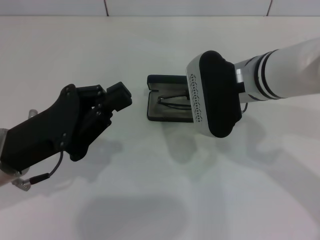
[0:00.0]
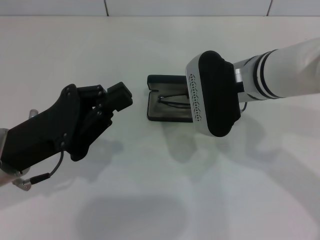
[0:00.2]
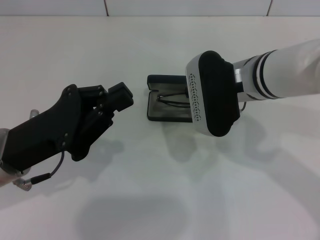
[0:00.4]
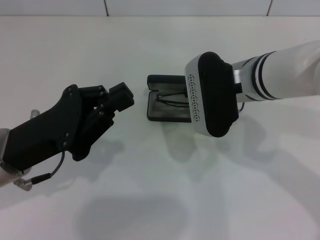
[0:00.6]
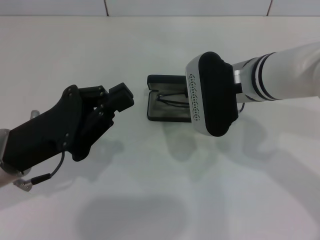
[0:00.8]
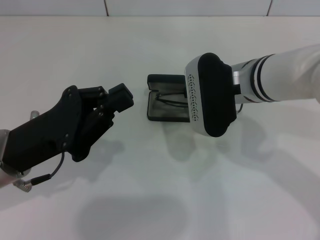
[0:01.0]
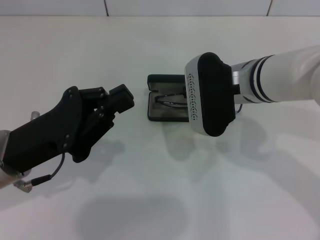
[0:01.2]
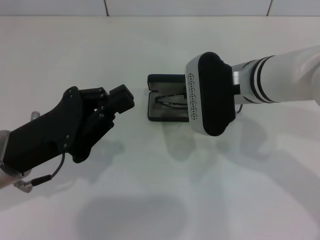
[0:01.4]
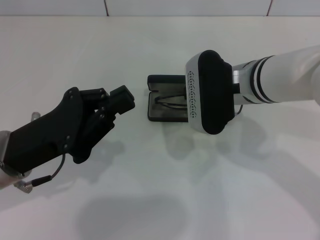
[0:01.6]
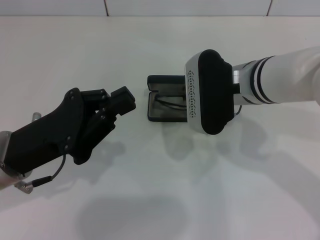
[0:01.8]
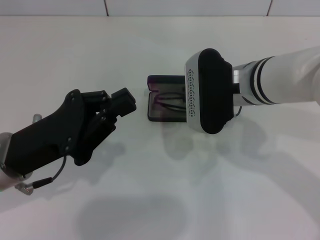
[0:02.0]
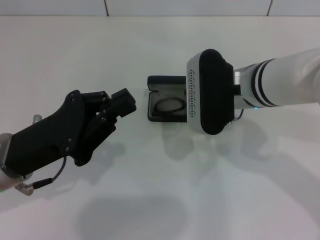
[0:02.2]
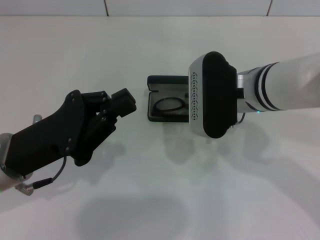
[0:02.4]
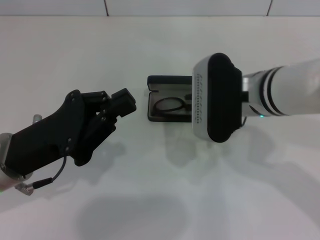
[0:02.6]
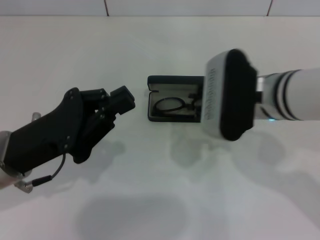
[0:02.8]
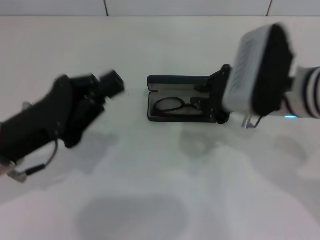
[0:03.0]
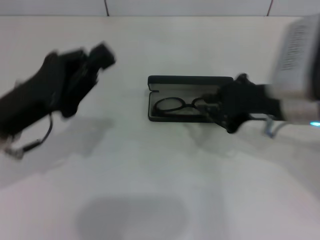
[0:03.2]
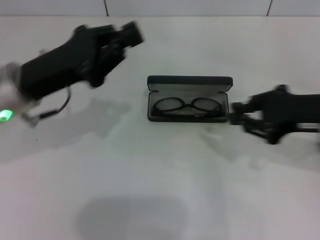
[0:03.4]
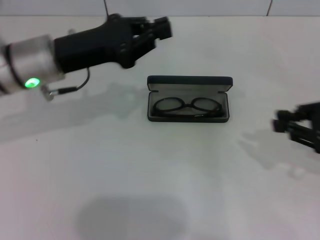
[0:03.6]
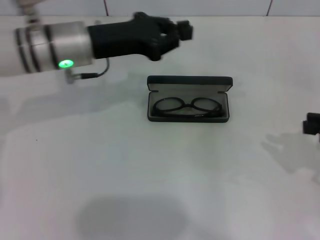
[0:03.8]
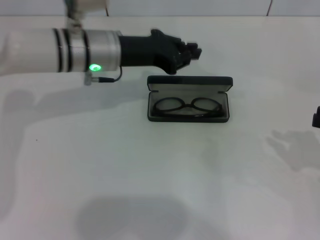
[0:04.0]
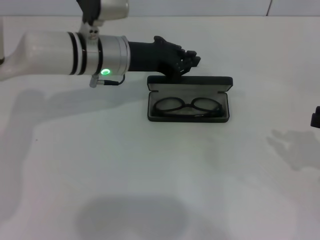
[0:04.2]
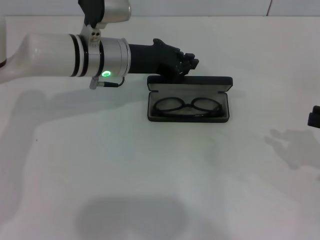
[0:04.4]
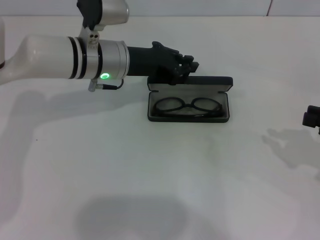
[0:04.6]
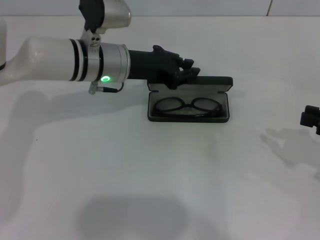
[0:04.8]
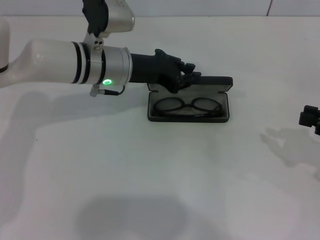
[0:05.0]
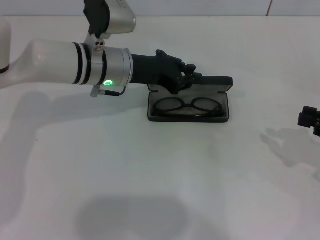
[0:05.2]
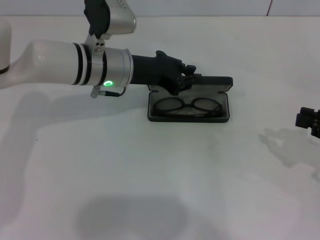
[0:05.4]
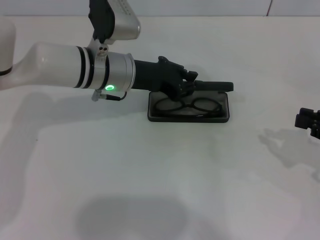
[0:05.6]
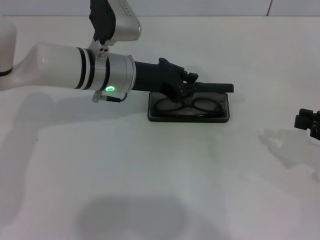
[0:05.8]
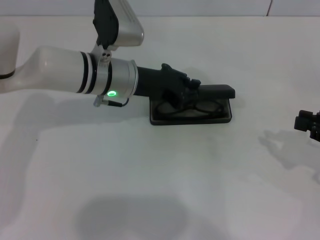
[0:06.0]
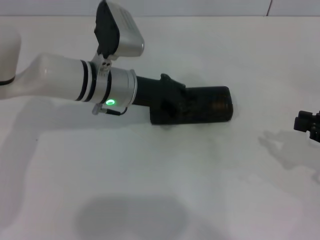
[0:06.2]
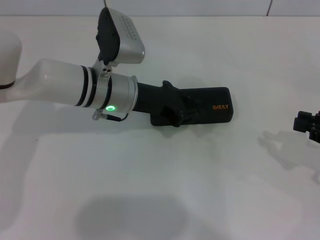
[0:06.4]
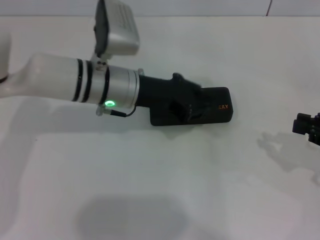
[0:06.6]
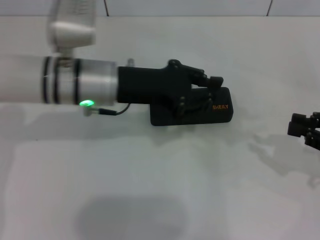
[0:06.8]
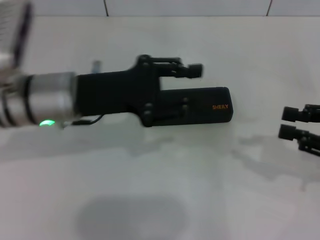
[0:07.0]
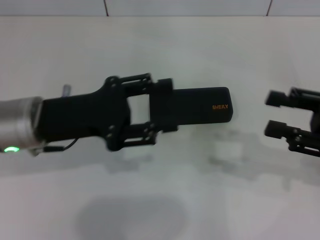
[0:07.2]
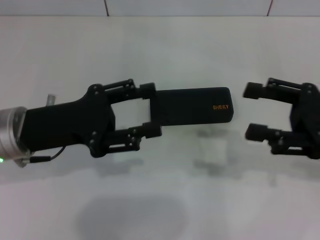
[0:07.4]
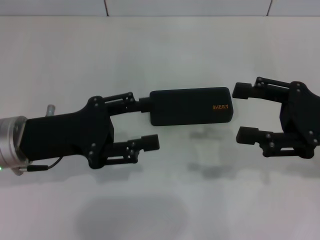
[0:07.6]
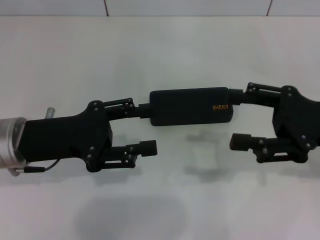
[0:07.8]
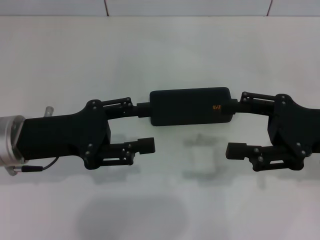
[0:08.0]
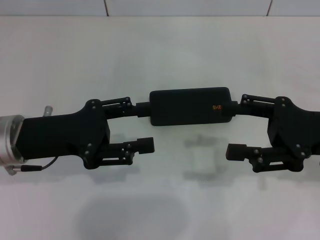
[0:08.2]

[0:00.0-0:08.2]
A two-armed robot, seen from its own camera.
Step, 0:00.0 to 0:02.2: Put the glasses into the case with your right hand.
Step, 0:02.4 to 0:06.2: Close the glasses case with your left hand.
0:00.0 to 0:01.6: The grippers stay close to where they were, moving slightly.
0:01.6 to 0:03.2: The right gripper is displaced to the right by approximately 10 cm.
0:03.2 to 0:05.0: The left gripper shifts roughly 20 cm forward and to the right; the right gripper goes about 20 cm to the right.
0:05.0 to 0:06.6: The grippers stay close to where they were, moving slightly.
0:06.6 to 0:08.2: The right gripper heads to the left, covering about 10 cm, and opens up, while the left gripper shifts approximately 15 cm to the left and backward, and opens its fingers.

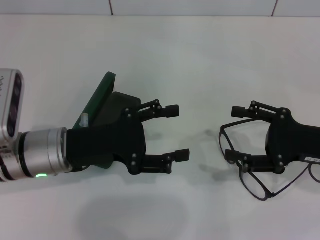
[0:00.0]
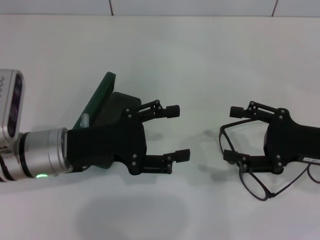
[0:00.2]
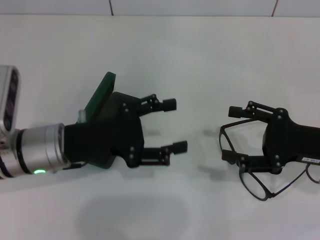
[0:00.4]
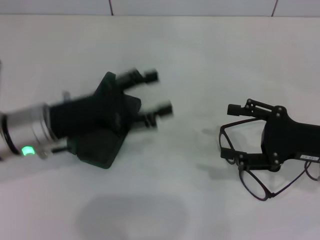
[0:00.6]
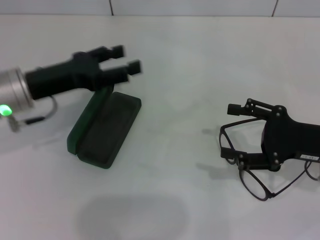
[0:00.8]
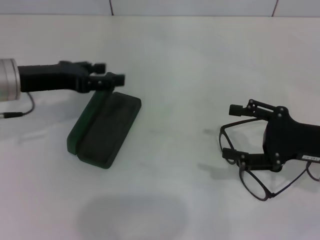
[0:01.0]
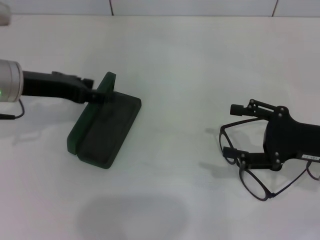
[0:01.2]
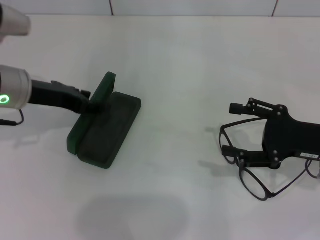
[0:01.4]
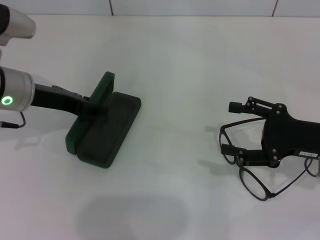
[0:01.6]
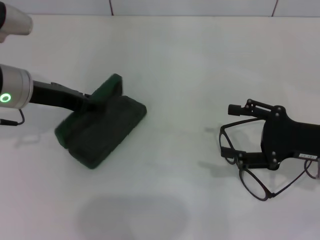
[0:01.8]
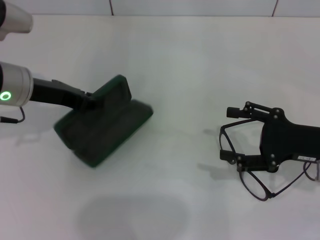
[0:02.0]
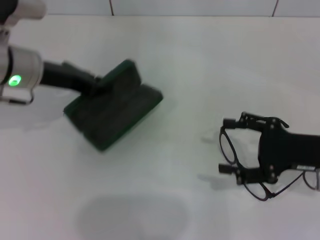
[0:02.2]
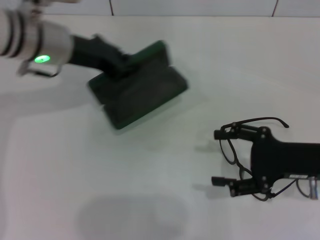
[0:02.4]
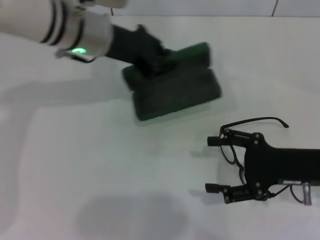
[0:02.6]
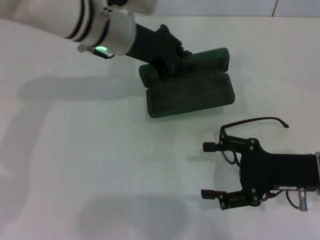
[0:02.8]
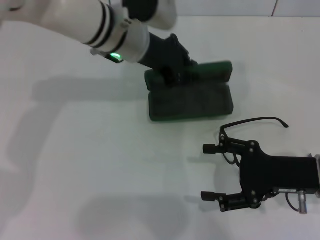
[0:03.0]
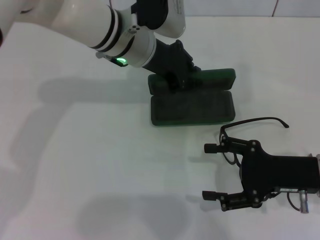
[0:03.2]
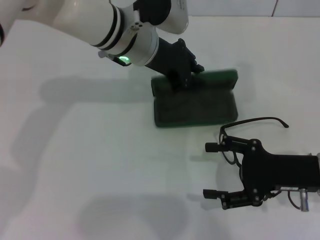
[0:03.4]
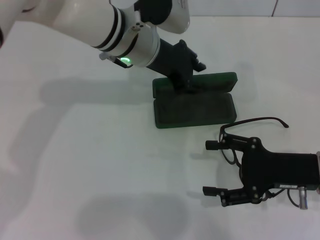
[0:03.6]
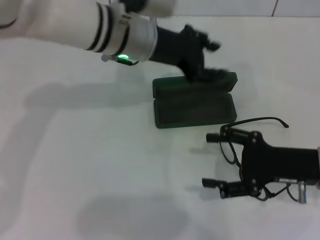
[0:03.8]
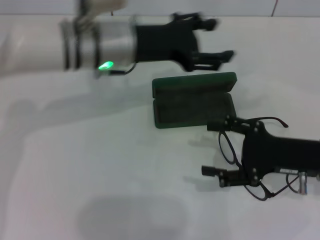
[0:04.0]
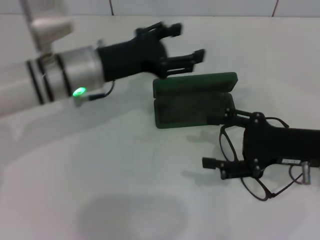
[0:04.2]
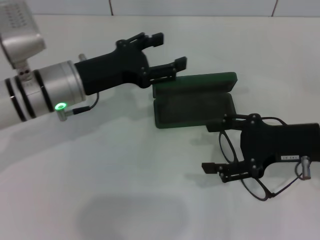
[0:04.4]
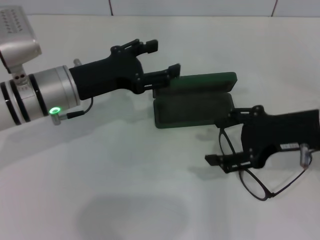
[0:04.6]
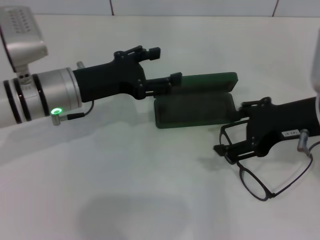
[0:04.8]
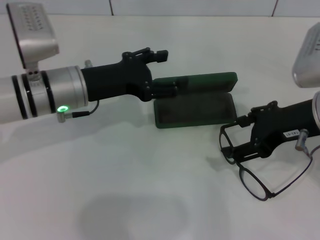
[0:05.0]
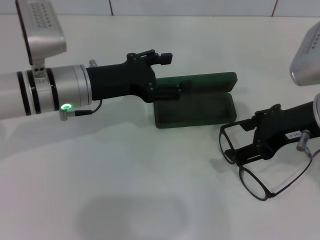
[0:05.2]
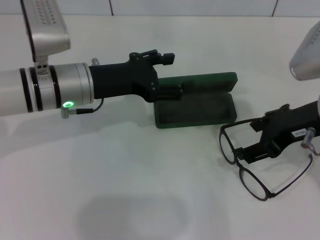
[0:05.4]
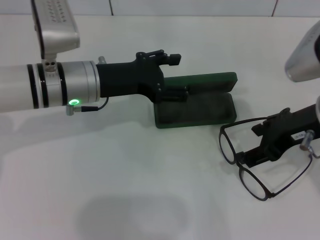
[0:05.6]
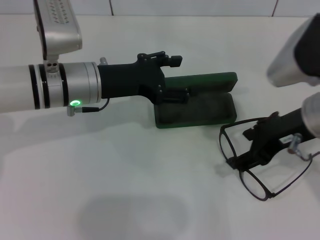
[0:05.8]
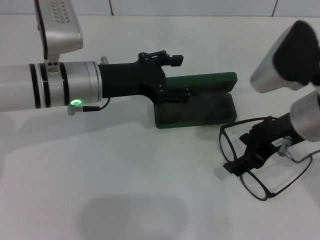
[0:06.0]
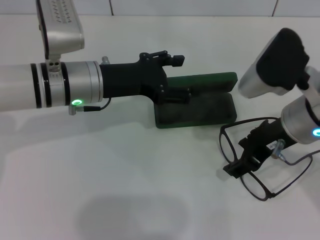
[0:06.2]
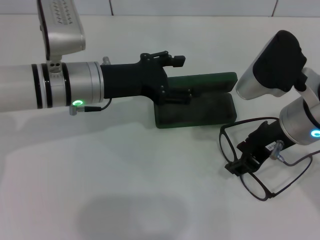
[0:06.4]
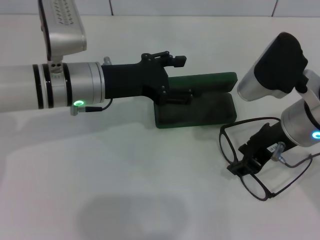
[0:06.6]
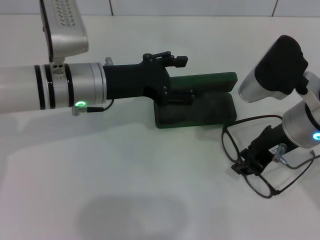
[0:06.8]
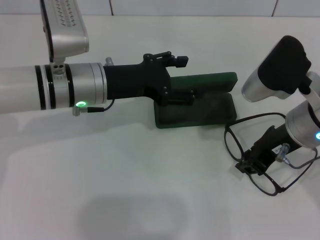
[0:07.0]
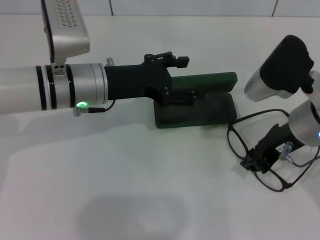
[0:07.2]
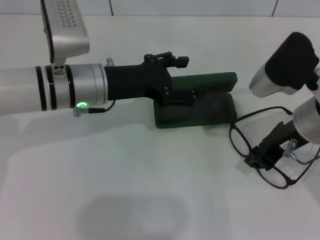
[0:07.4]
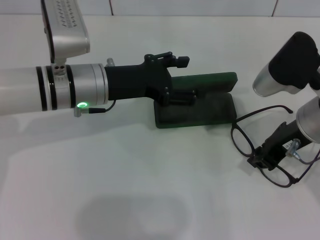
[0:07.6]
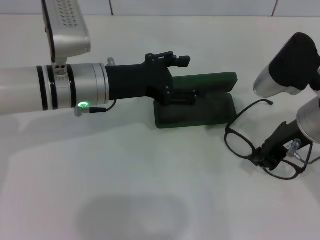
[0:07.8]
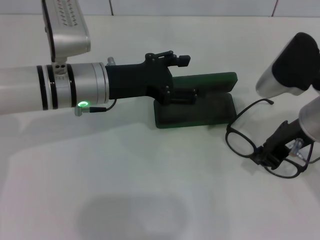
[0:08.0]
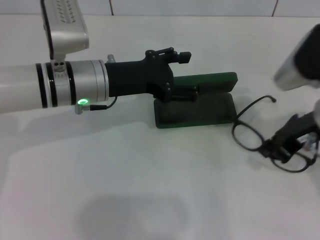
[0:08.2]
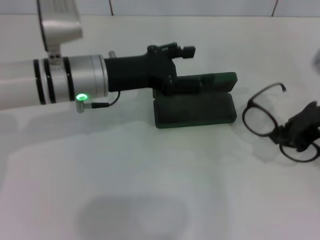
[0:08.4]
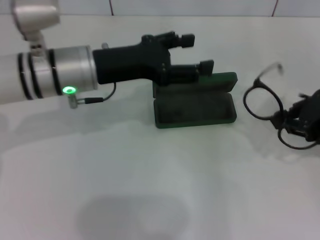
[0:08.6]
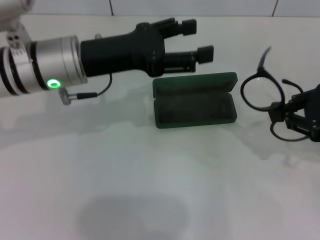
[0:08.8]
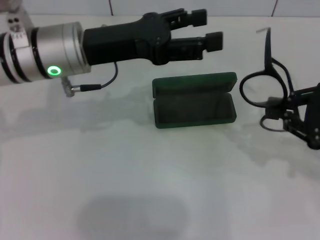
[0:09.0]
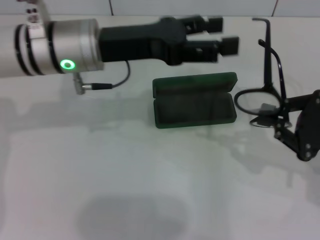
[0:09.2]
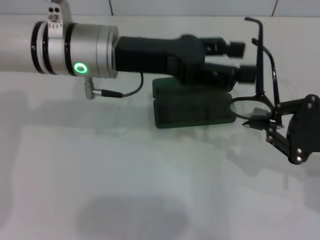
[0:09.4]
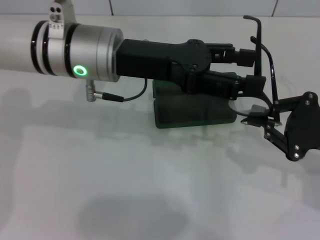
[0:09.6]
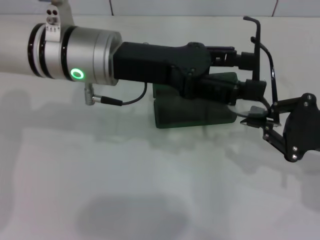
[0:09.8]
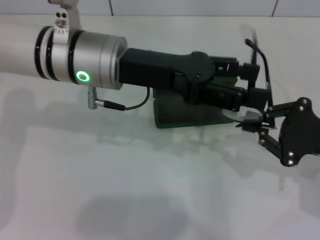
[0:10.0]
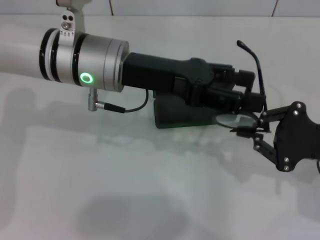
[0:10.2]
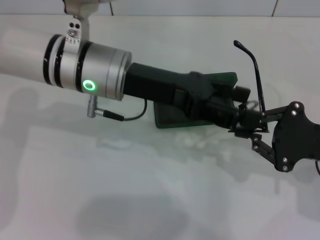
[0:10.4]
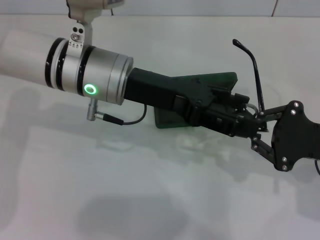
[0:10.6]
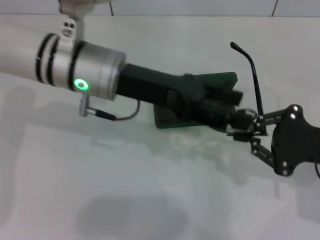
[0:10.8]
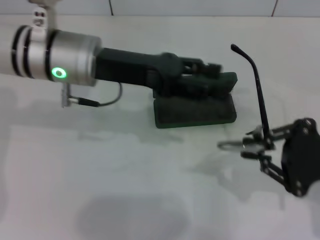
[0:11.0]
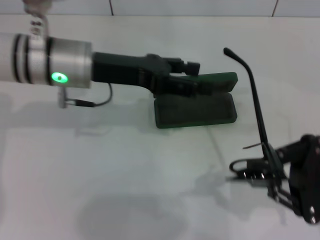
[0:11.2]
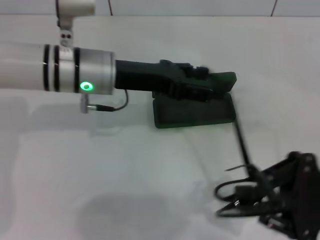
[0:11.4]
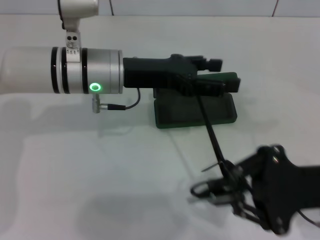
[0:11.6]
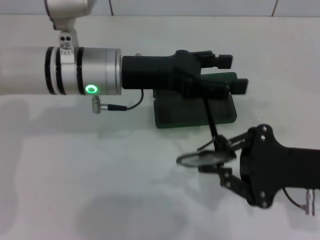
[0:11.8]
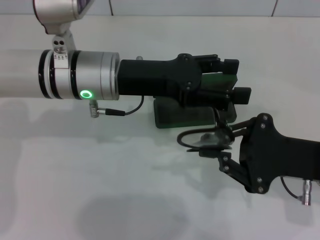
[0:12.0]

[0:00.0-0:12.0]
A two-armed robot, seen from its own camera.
Step, 0:00.0 to 0:01.6: Grab the glasses case with your left hand.
Step, 0:01.8 to 0:03.4: Place the glasses case in the center of the table with your left hand.
Step, 0:03.6 to 0:07.0: Grab the eyeglass frame with your right hand.
0:00.0 to 0:01.6: The left gripper goes roughly 10 cm forward and upward.
0:01.6 to 0:03.0: The left gripper moves to the right and forward, about 15 cm, and closes.
0:03.0 to 0:04.4: The left gripper travels to the left and backward by about 15 cm, and opens up. The right gripper moves upward, approximately 5 cm.
0:04.4 to 0:06.0: The right gripper moves to the left and upward, roughly 10 cm.
0:06.0 to 0:07.6: The right gripper closes.
0:07.6 to 0:09.0: The left gripper is displaced upward by roughly 5 cm. The right gripper moves to the right, roughly 10 cm.
0:09.0 to 0:10.4: The right gripper moves some 5 cm.
0:10.4 to 0:12.0: The right gripper ends up about 5 cm from where it was.

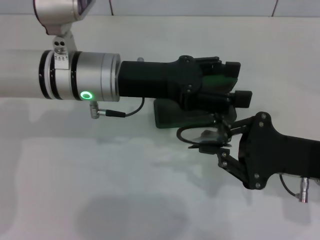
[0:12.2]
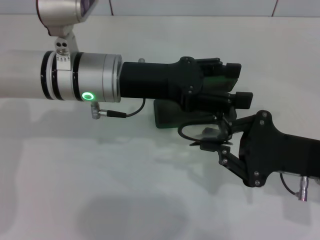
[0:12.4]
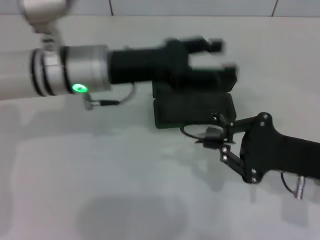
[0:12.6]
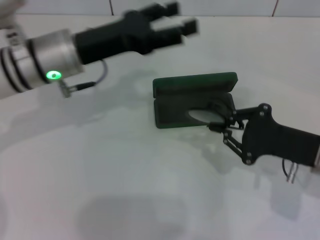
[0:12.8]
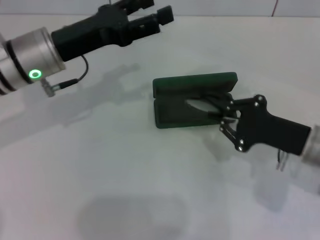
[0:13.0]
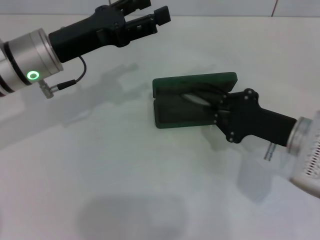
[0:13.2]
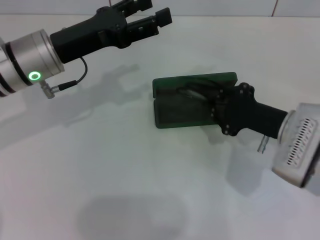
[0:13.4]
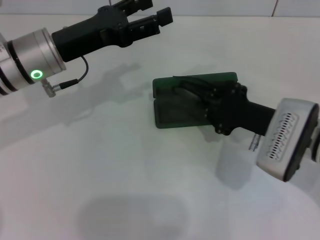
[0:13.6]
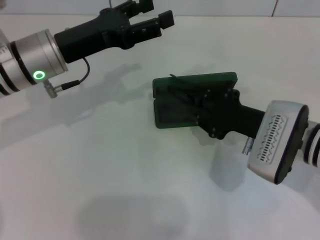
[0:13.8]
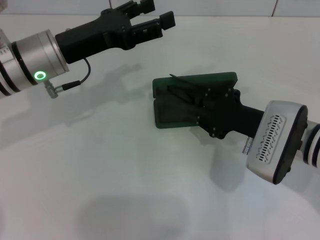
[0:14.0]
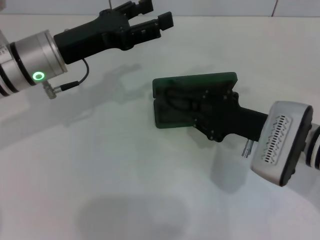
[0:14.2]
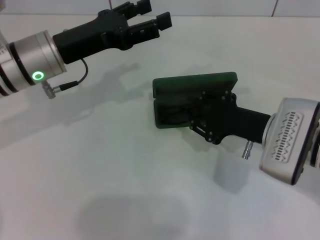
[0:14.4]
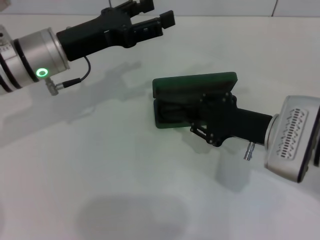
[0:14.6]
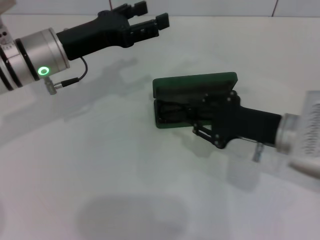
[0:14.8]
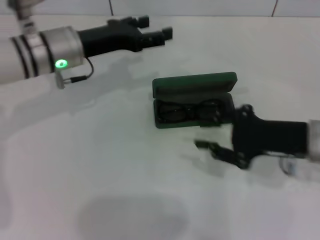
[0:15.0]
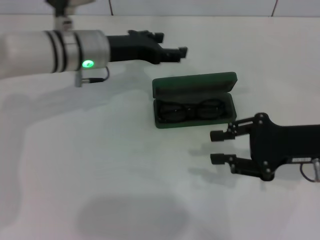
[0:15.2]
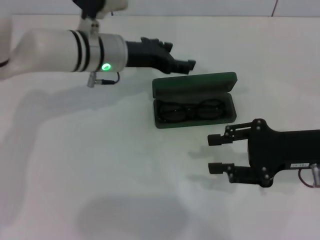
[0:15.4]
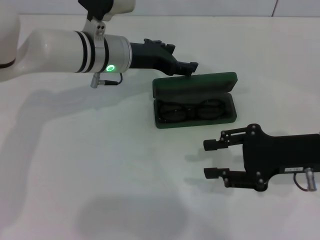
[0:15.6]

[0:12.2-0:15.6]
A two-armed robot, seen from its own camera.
Step, 0:12.4 to 0:14.2: Put the glasses into the case with your right hand.
0:12.2 to 0:13.8: The two grippers go some 5 cm to the left.
0:13.8 to 0:15.6: The left gripper goes roughly 10 cm to the right and forward. Meanwhile the right gripper heads to the right, covering about 5 cm.
